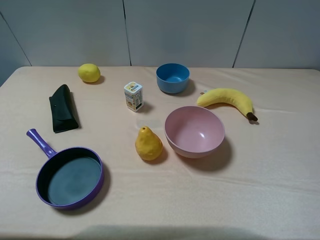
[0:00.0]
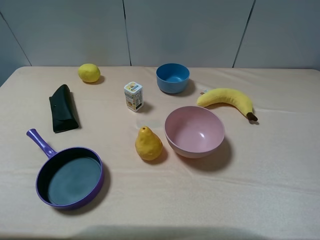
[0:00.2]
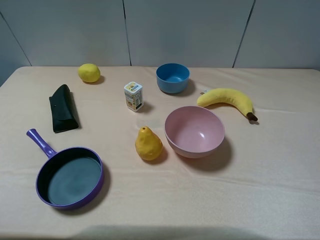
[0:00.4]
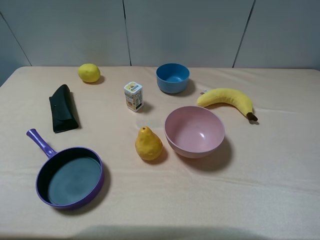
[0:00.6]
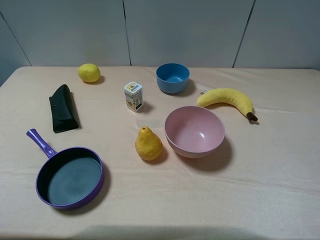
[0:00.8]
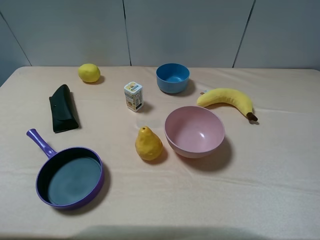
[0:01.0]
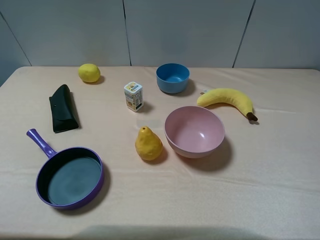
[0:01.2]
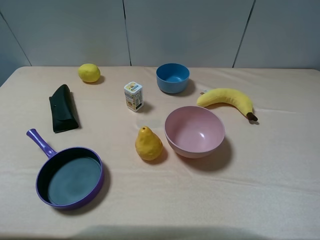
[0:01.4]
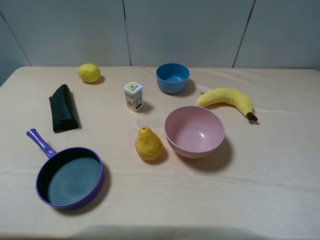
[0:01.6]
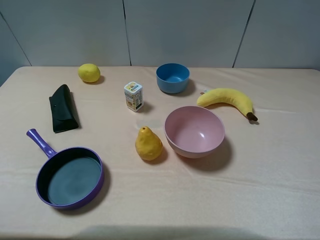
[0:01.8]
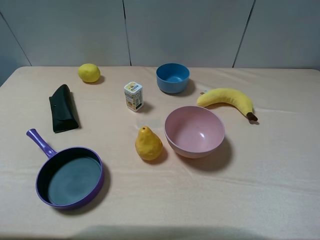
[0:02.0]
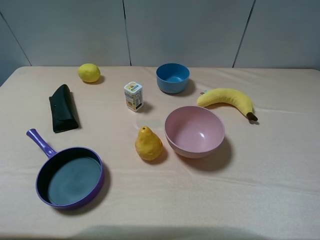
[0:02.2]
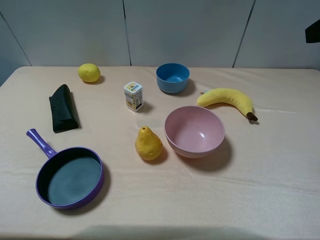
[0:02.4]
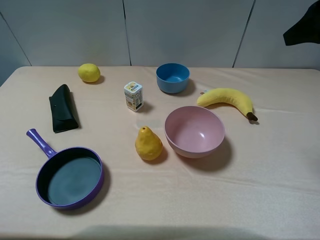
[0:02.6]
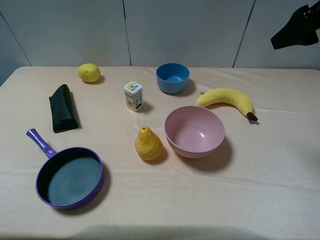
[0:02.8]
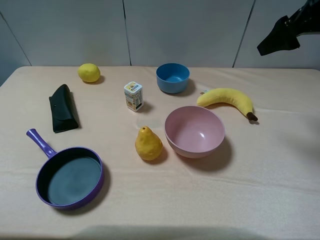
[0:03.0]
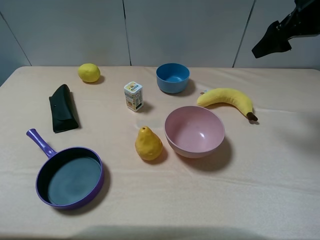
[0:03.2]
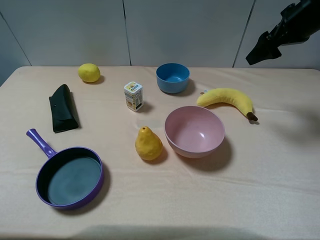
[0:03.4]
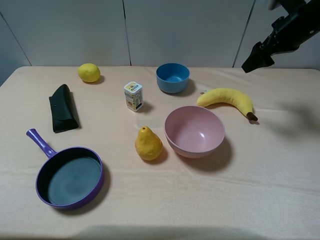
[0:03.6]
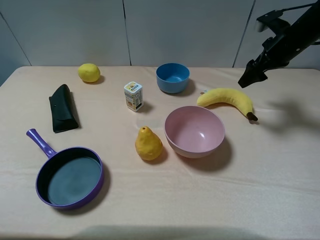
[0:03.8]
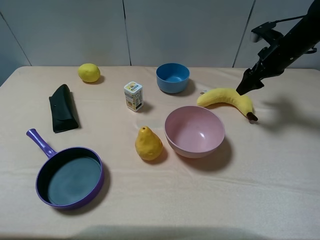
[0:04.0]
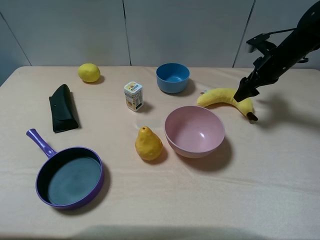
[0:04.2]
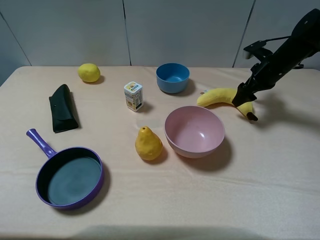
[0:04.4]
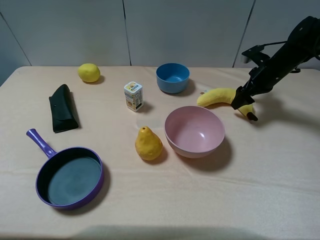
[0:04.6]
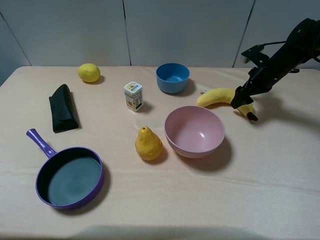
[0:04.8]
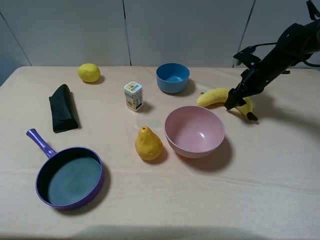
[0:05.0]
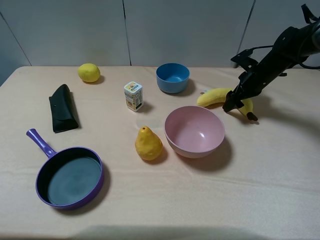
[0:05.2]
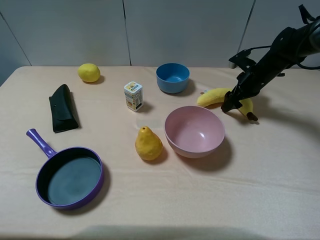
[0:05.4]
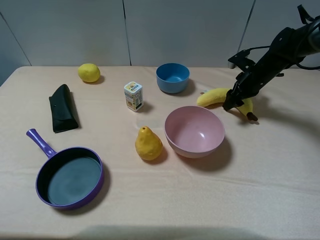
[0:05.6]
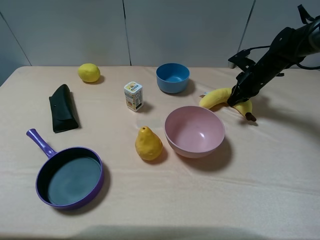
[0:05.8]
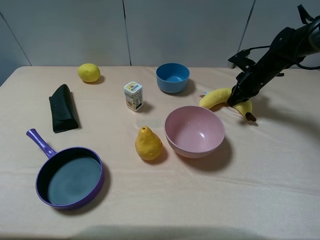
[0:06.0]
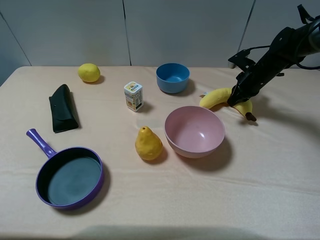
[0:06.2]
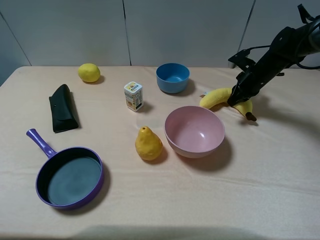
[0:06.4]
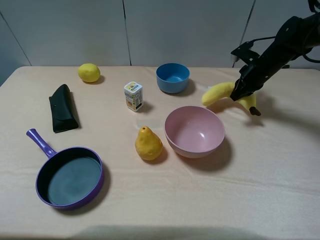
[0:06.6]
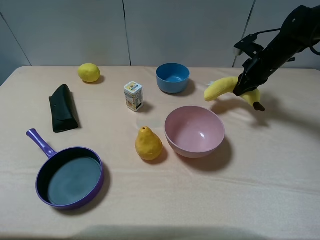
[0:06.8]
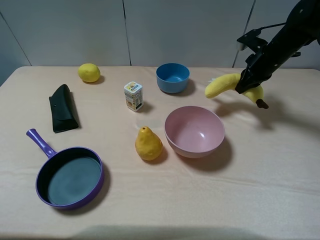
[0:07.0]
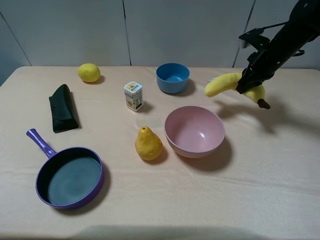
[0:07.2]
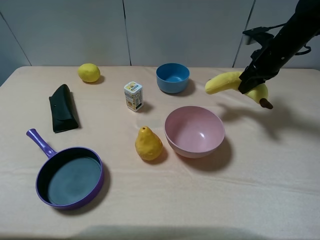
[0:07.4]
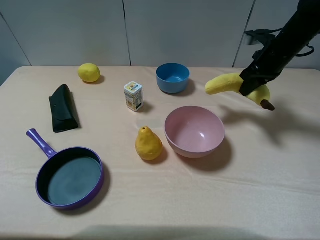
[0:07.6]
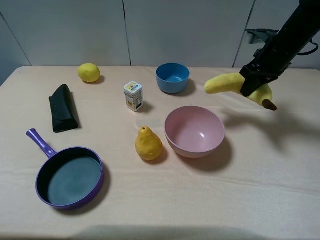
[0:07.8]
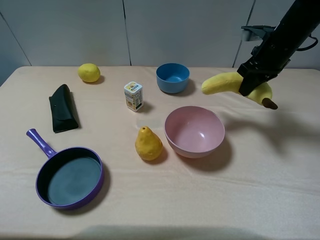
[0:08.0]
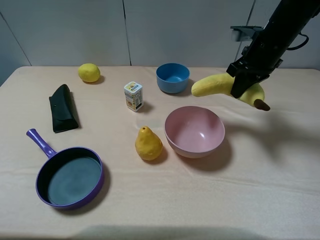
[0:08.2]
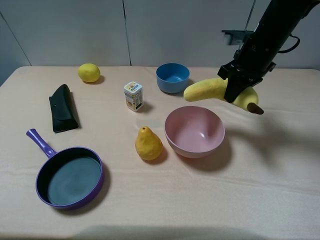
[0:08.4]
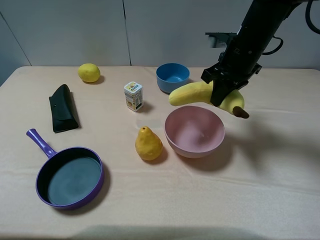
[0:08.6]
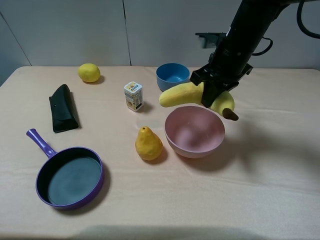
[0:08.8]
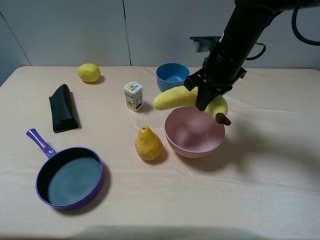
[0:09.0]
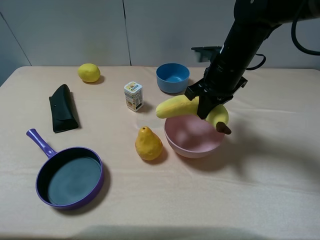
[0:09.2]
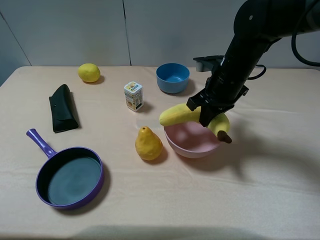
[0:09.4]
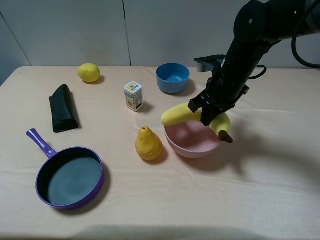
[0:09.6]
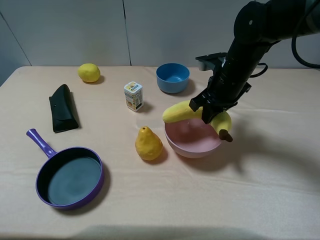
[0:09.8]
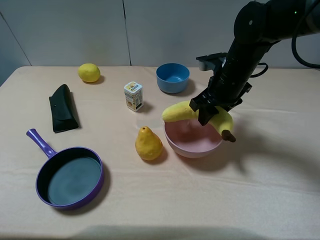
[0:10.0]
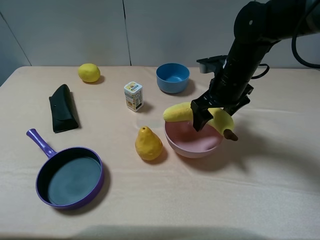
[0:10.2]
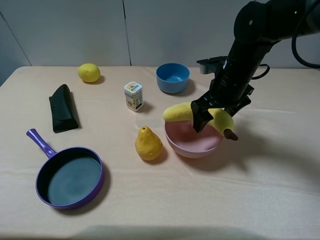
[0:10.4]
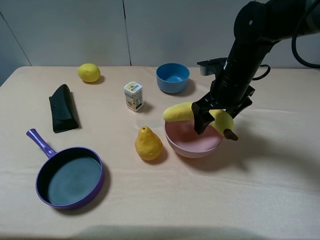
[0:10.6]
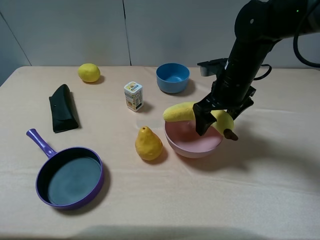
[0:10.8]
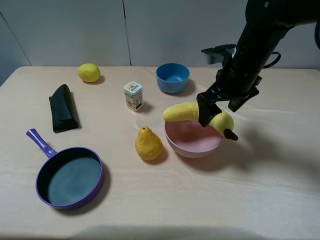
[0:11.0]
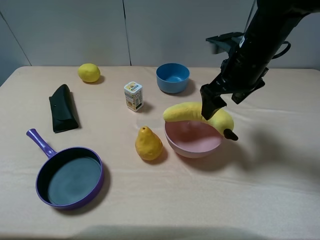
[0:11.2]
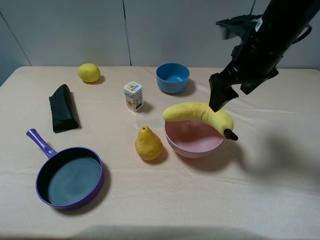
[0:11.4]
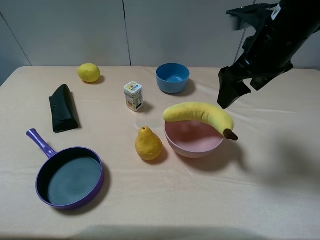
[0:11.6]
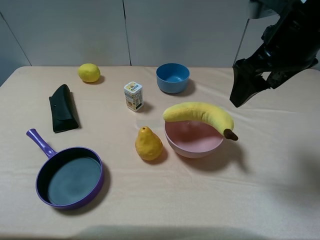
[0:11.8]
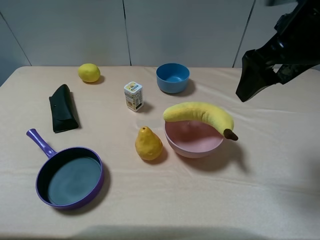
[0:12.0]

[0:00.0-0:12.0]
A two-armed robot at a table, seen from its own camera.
Task of the whole recording: pick up an item with a gripper and place it in a random container on the table.
0:01.6 to 0:03.0: The right gripper goes about 25 cm forward.
0:03.0 to 0:04.4: The right gripper goes about 20 cm downward and forward.
0:04.4 to 0:06.0: The right gripper closes its fingers.
0:06.0 to 0:07.6: The right gripper is displaced upward by roughly 10 cm.
0:07.6 to 0:09.0: The right gripper is displaced to the left and backward by approximately 15 cm.
0:09.0 to 0:10.4: The right gripper opens up.
0:10.4 to 0:12.0: The right gripper goes approximately 20 cm upward and backward.

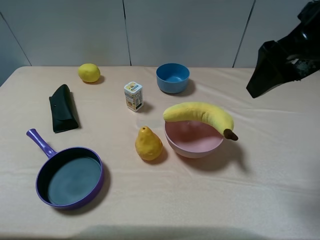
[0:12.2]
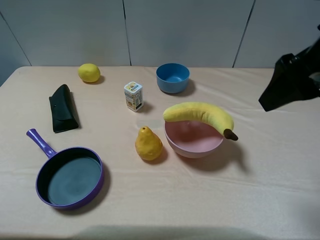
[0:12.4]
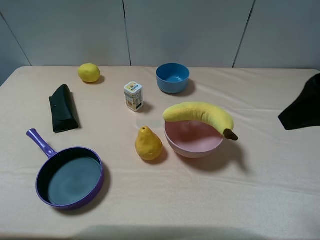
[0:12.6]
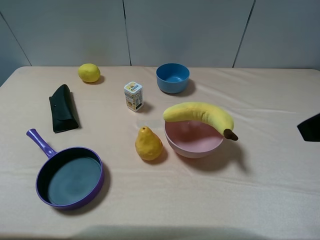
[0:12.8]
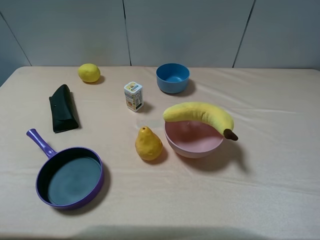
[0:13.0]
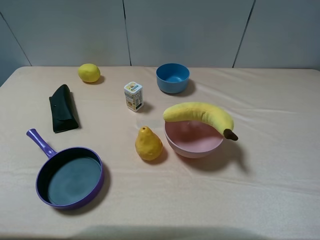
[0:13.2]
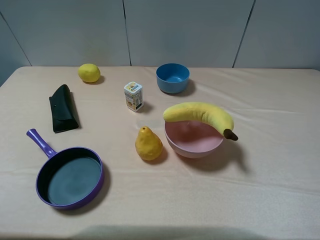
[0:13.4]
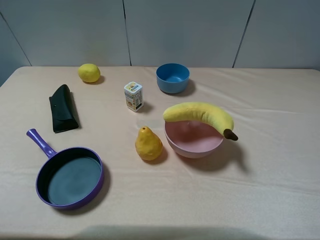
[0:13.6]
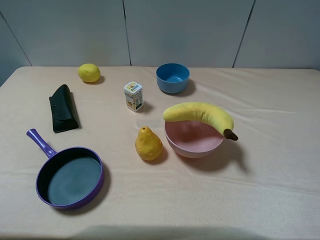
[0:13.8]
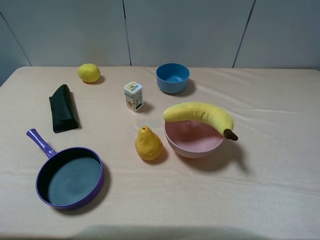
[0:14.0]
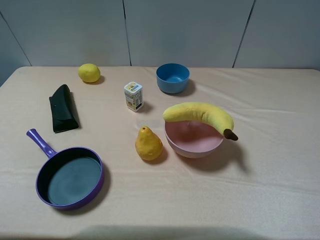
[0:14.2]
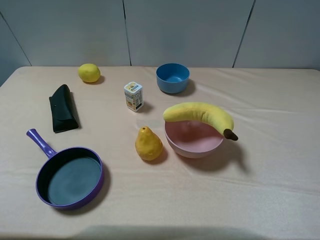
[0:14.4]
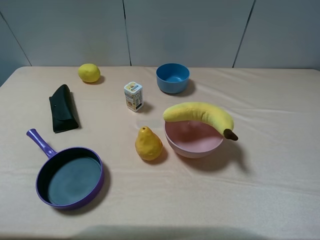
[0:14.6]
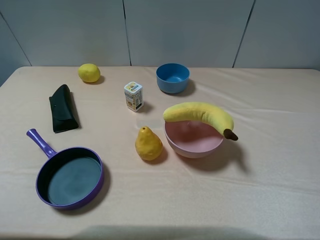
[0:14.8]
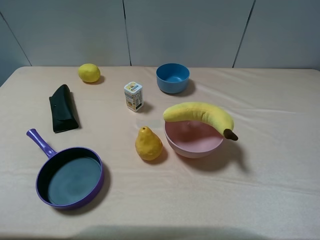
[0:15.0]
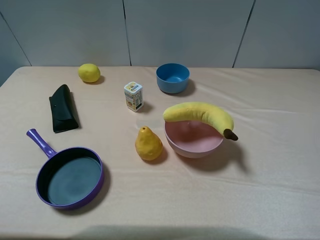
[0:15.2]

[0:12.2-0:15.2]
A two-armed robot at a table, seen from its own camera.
Task of the whole recording: pick up an item with a gripper and place it in a random container on the table.
0:12.2 to 0:13.8: The right gripper moves backward and to the right, some 25 cm.
0:13.8 to 0:15.2: Both grippers stay put.

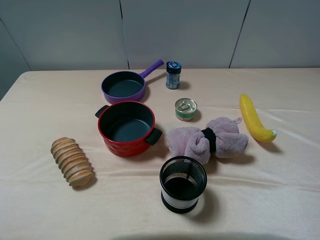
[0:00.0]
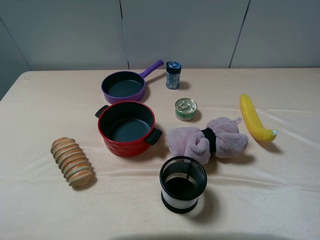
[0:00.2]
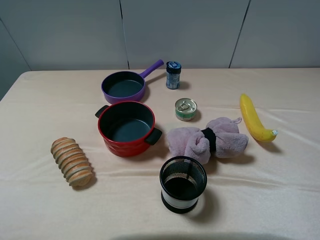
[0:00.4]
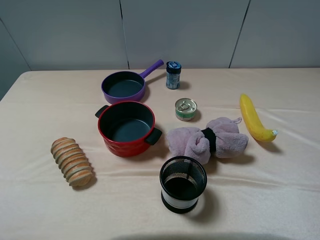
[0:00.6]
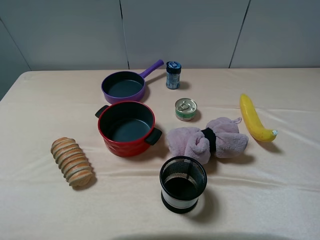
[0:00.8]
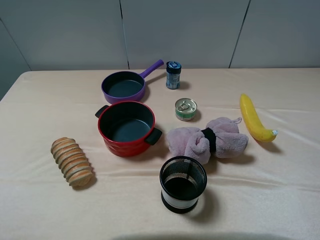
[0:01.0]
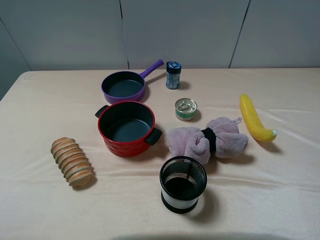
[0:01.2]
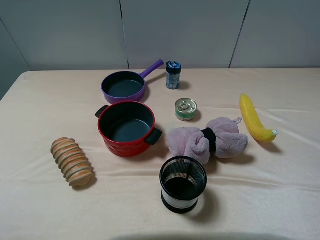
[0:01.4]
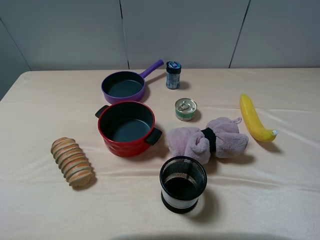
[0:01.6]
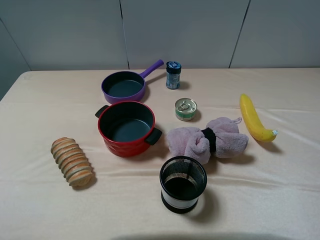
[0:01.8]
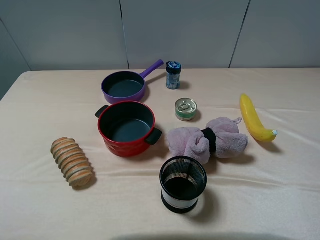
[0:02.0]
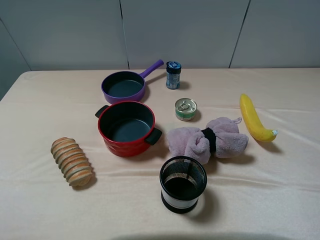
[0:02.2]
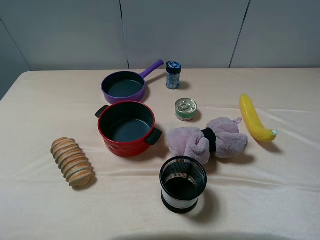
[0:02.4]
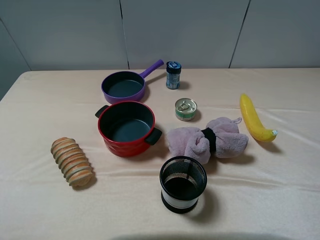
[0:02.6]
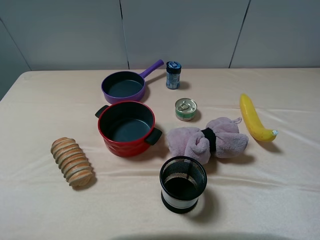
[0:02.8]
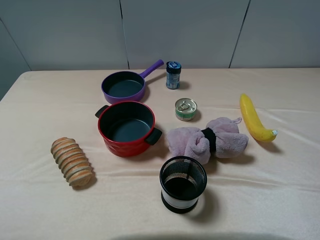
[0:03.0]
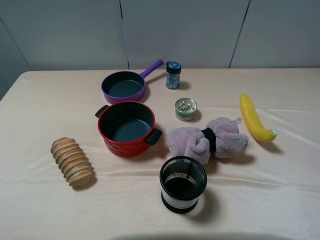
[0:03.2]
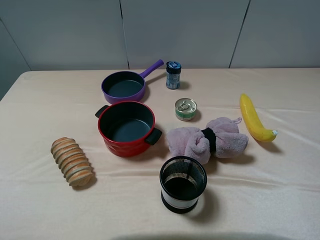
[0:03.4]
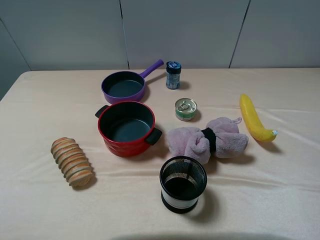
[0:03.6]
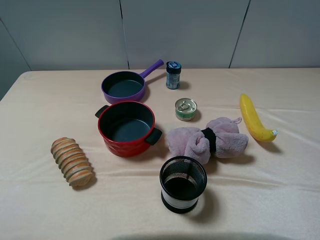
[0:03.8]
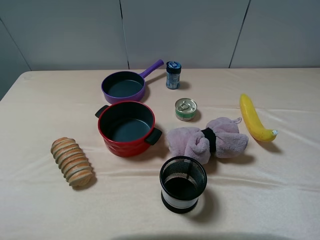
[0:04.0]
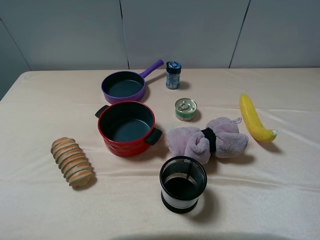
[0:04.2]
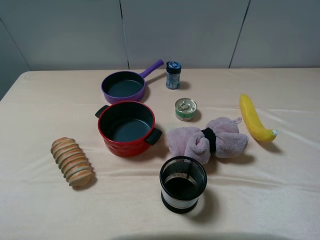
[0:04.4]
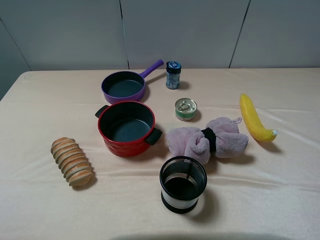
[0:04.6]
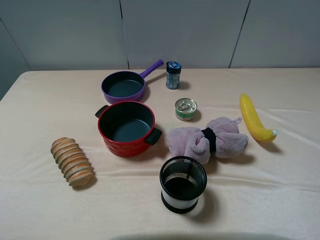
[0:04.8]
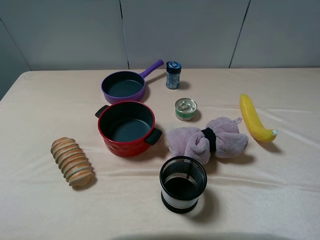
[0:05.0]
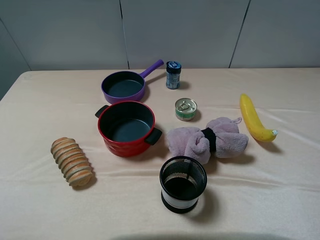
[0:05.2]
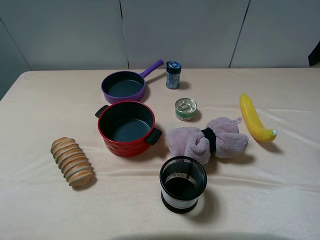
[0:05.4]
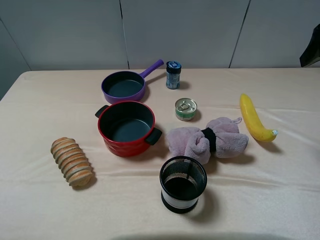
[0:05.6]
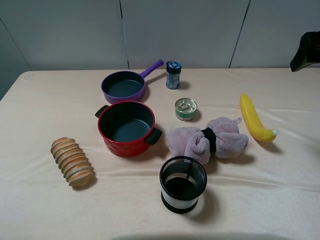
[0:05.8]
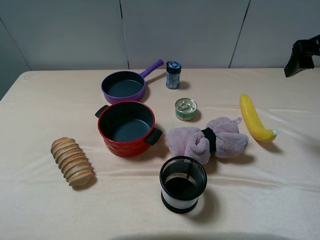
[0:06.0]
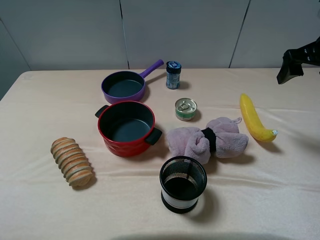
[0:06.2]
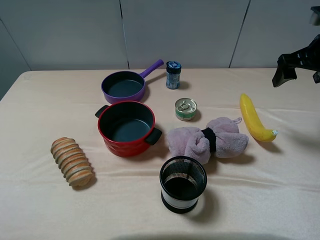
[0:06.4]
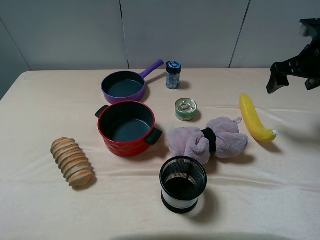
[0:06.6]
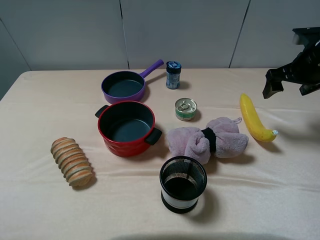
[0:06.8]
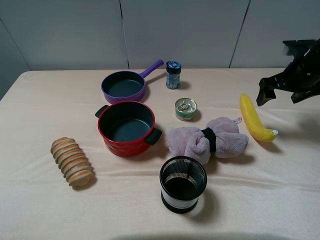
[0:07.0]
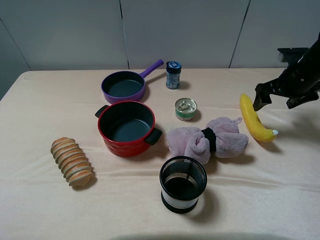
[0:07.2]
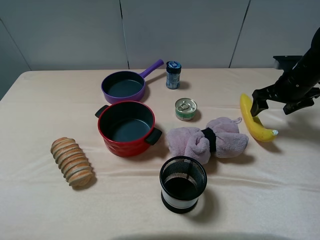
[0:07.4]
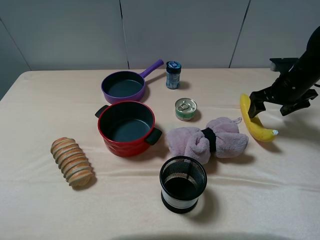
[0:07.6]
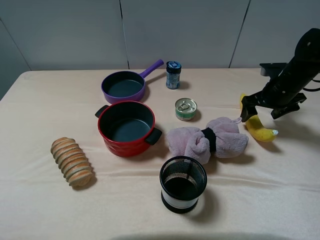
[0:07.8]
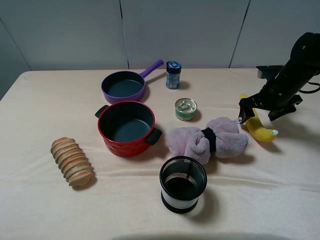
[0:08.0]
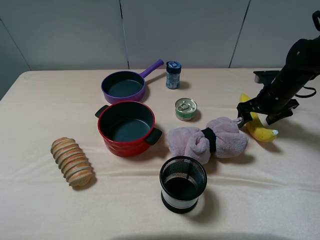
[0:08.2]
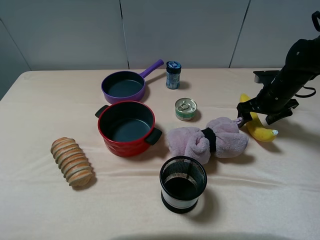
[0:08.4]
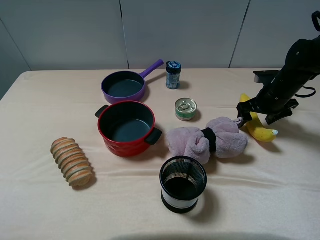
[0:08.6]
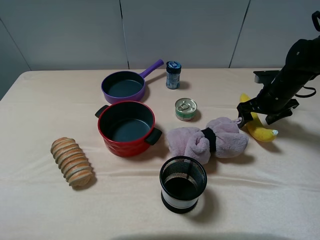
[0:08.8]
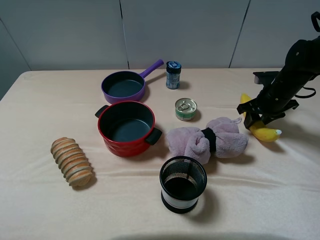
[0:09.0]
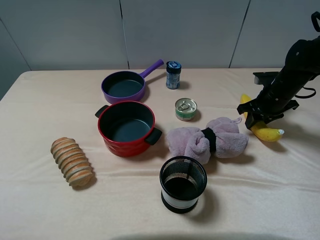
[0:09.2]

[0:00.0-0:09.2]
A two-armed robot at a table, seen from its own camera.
Task of the whole recording: pick up an item with a gripper and place it in a random container on the table.
0:00.0 to 0:03.0: Neither gripper changes place.
0:04.6 to 0:06.2: The right gripper goes about 20 cm forward.
0:06.2 to 0:07.6: The right gripper is displaced downward by about 15 cm.
0:07.6 to 0:09.2: The right gripper closes.
